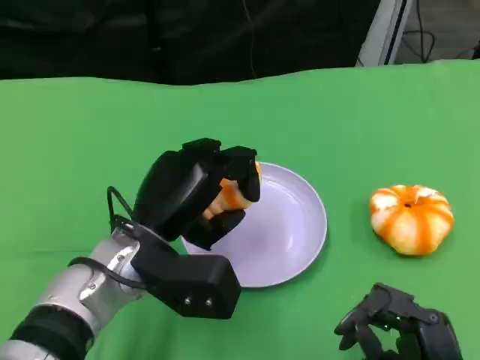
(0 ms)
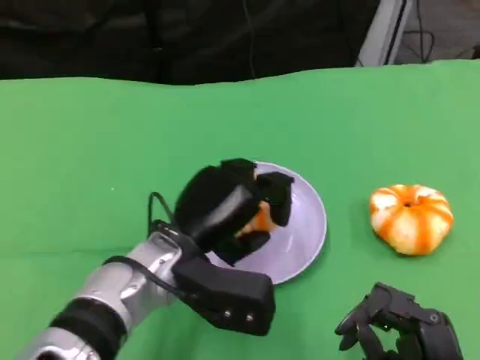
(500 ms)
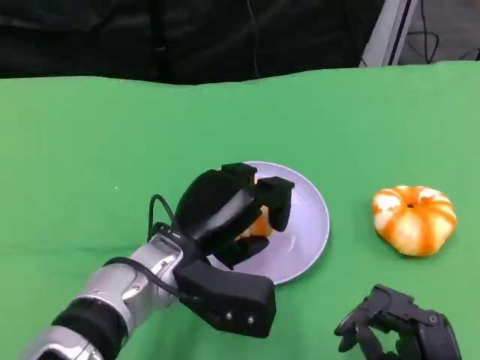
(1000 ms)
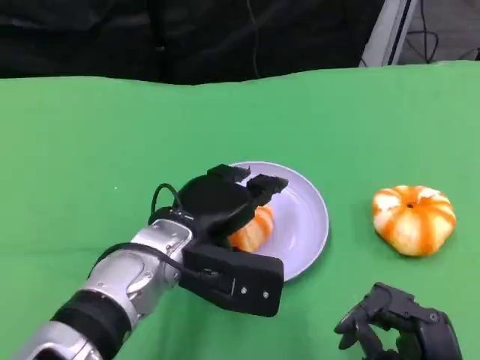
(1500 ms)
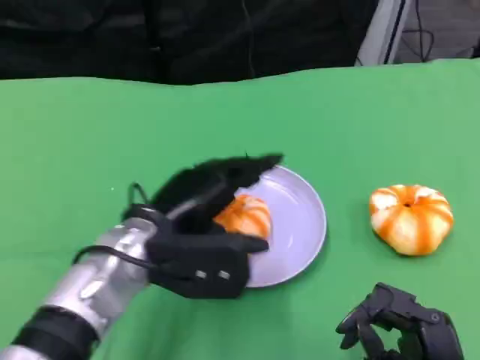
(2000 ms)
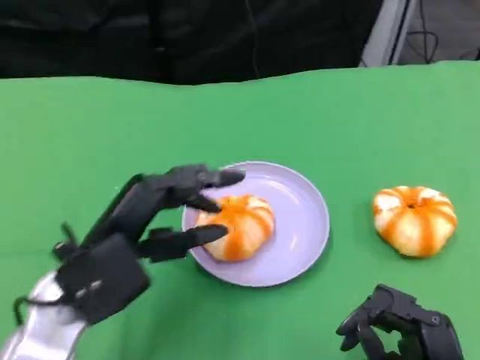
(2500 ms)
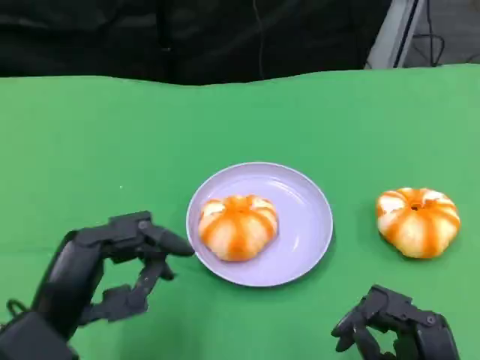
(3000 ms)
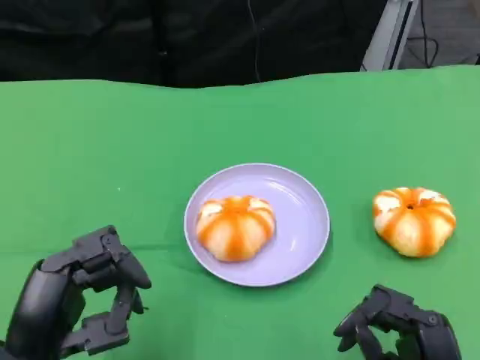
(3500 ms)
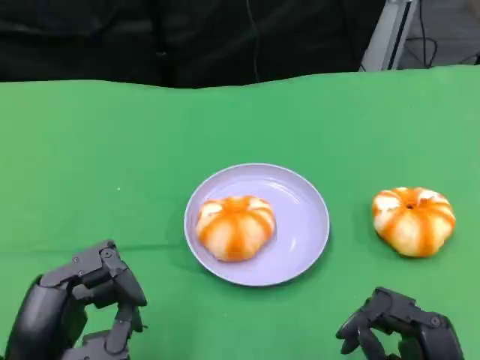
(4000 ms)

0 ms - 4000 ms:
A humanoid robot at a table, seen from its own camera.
Task of the whole recording: Grasp the bread from the table and place it into the plate.
2000 ms - 4000 ms: The left hand shifts about 15 cm backward and to the left.

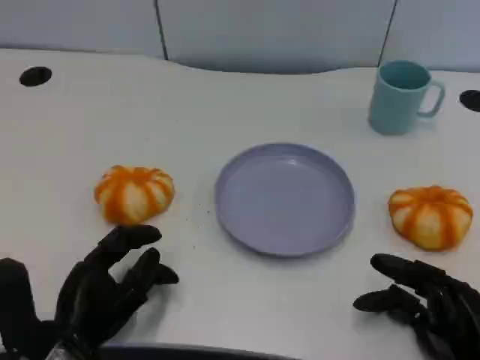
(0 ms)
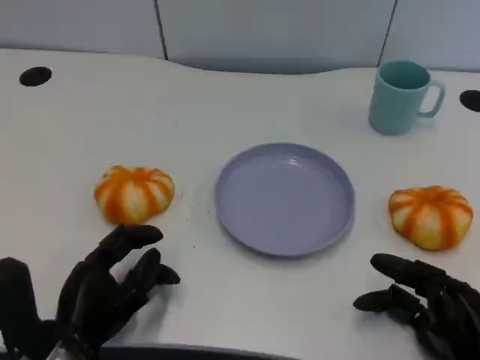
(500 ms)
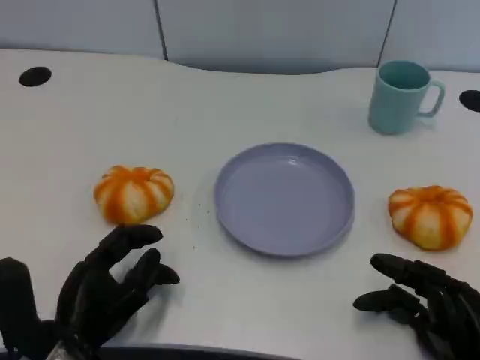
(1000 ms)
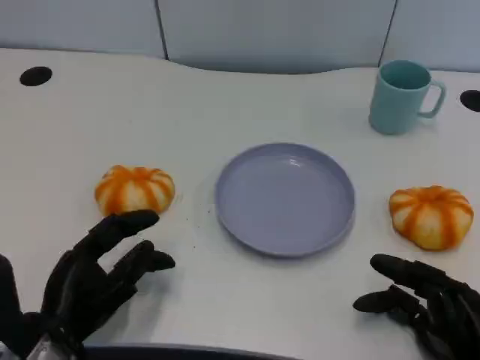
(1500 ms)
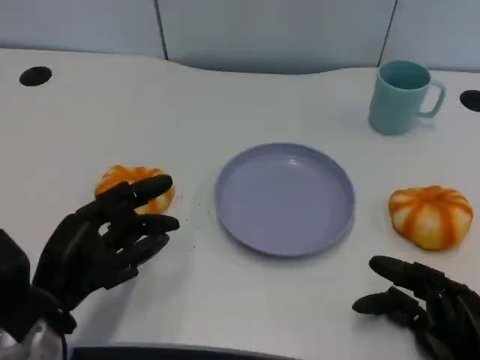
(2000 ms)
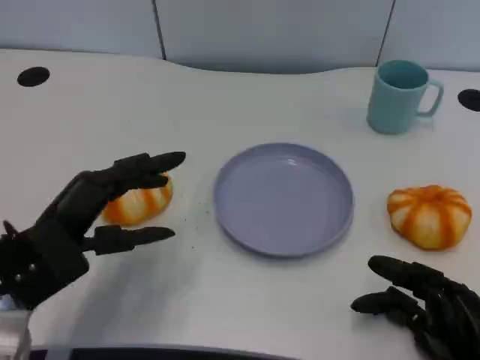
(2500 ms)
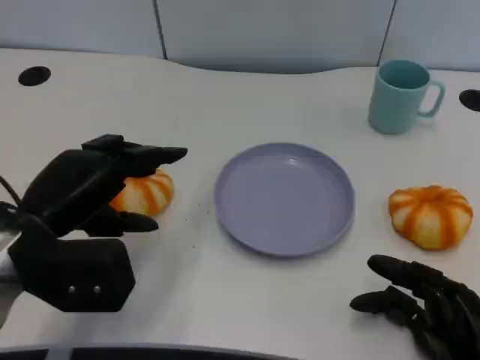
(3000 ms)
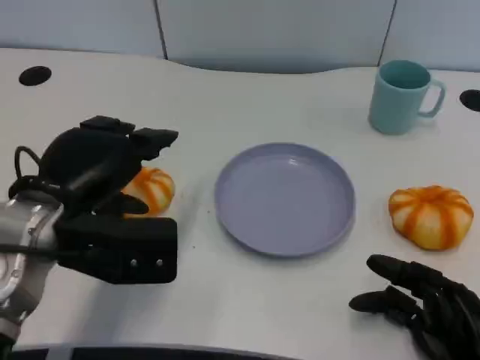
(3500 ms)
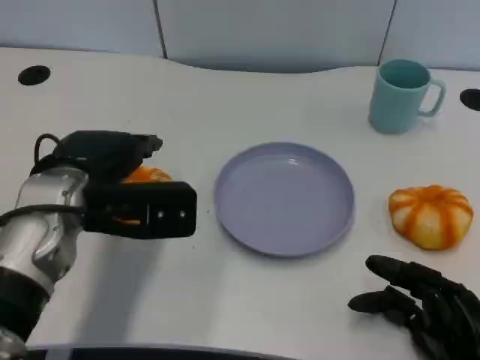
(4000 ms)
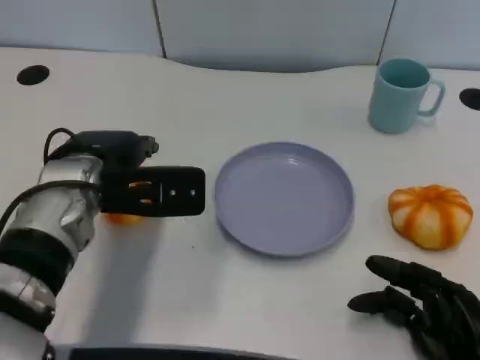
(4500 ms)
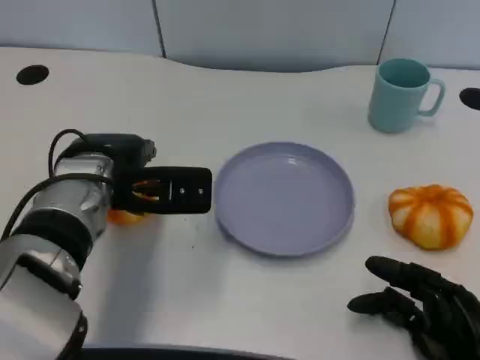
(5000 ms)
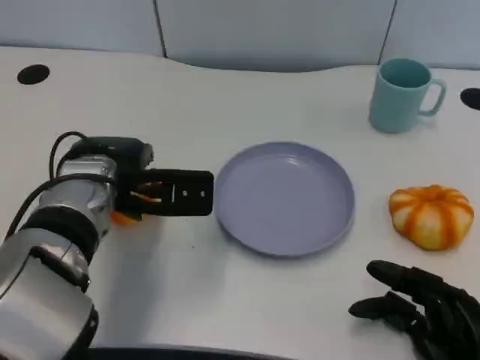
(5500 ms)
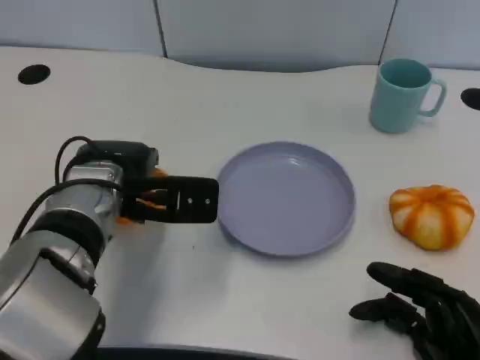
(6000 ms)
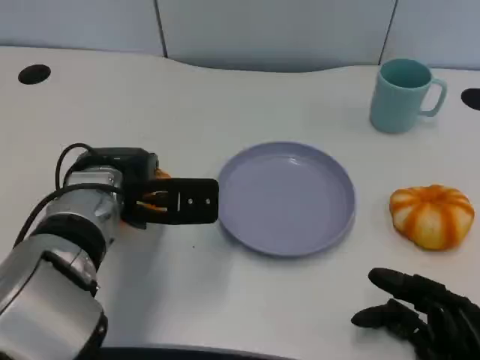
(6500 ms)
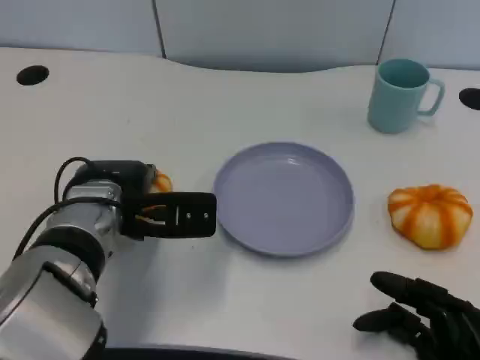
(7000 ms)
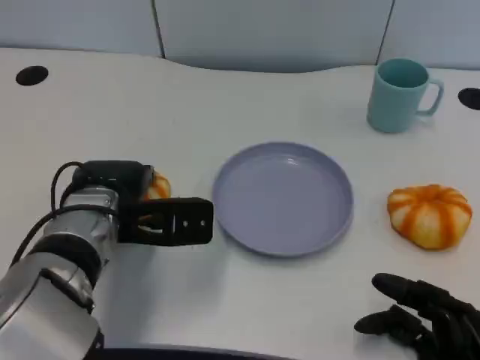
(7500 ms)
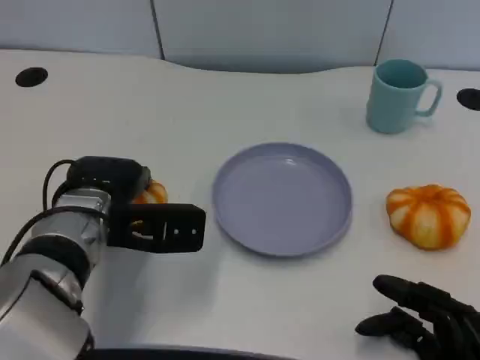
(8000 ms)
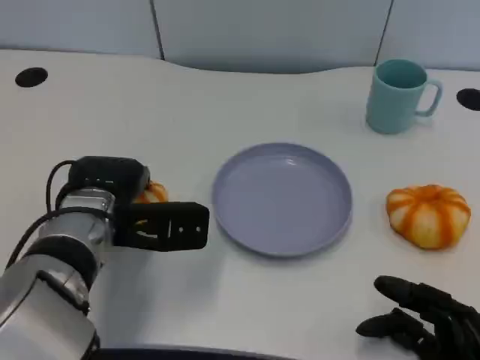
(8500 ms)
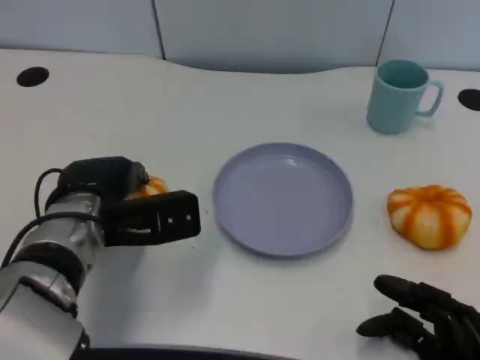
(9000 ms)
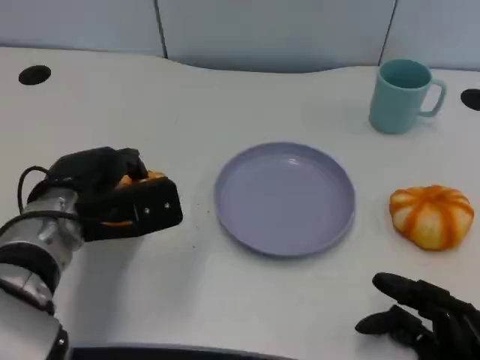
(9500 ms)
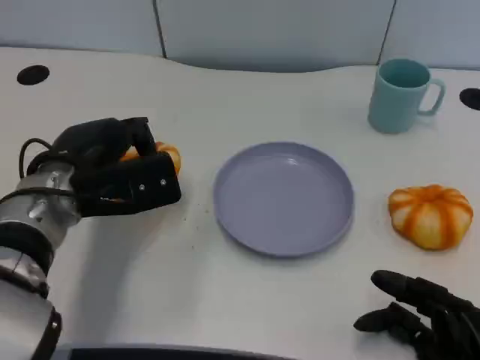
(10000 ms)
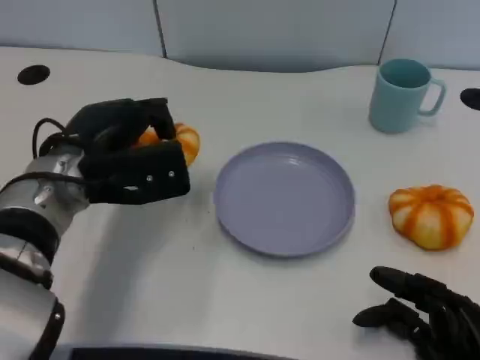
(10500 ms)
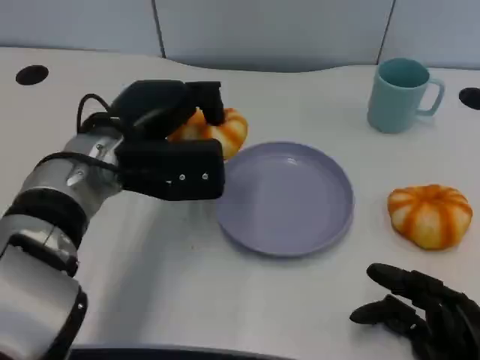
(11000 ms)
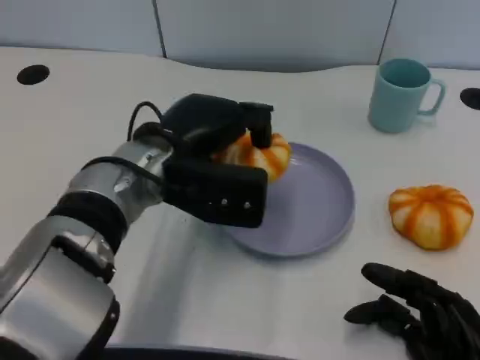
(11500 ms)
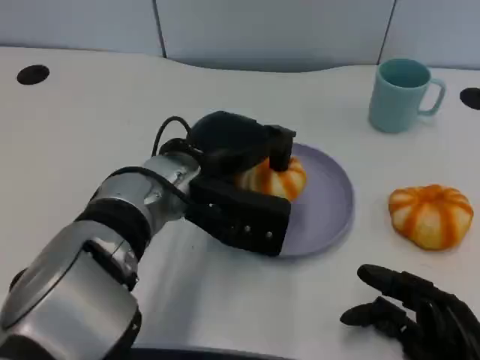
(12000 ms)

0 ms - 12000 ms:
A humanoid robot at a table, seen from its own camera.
Task of the whole recording: Grasp the bread from the table and place it into the plate.
0 ms - 2000 ms: The left hand shifts by some 5 cm.
2000 ms - 4000 ms: The left hand moves forward and upward, approximately 10 cm.
4000 ms - 6000 ms: The left hand moves roughly 5 cm.
6000 ms - 8000 ms: The hands stay close to where they were, moving slightly.
10000 ms - 12000 ms: The left hand is displaced to the right by some 10 cm.

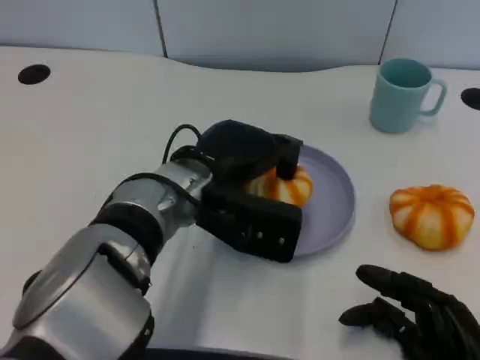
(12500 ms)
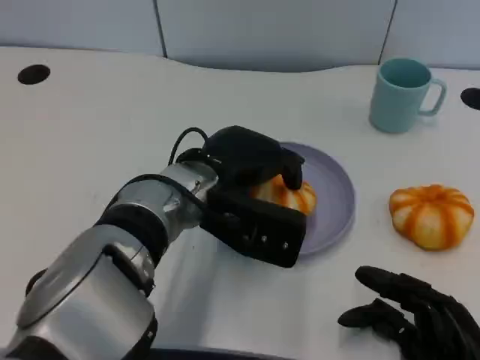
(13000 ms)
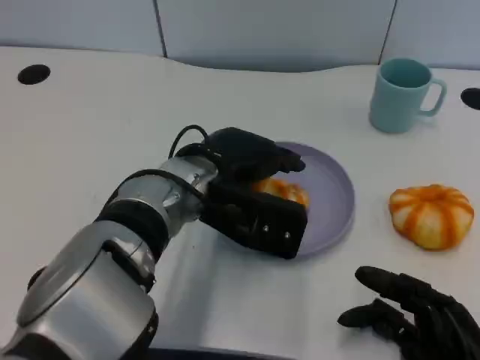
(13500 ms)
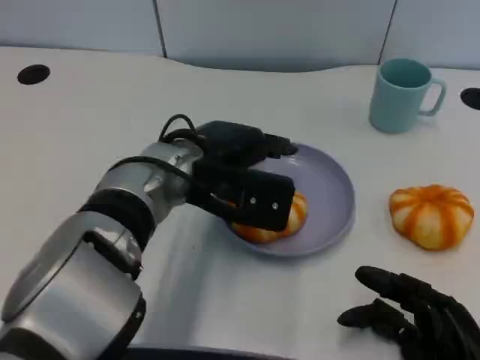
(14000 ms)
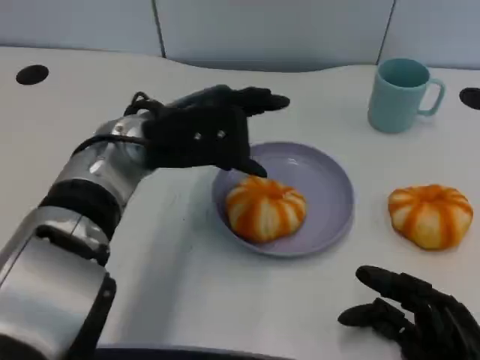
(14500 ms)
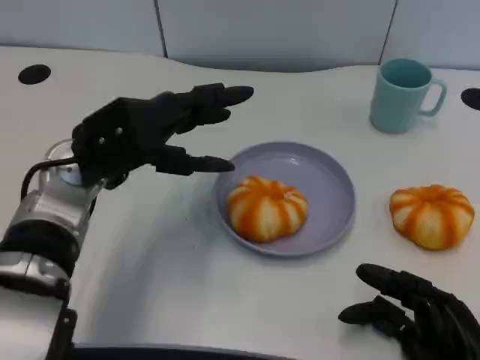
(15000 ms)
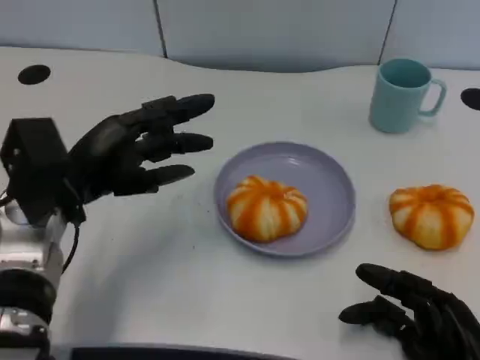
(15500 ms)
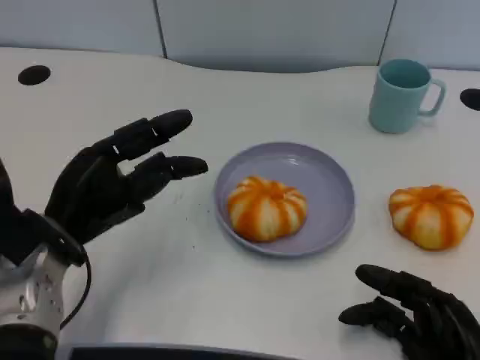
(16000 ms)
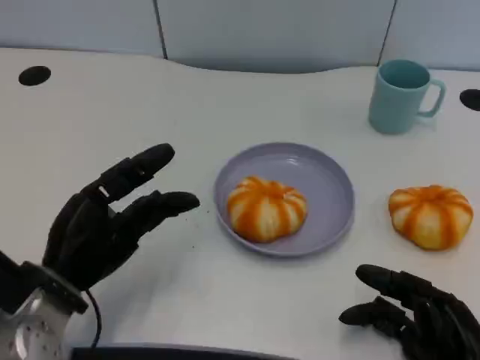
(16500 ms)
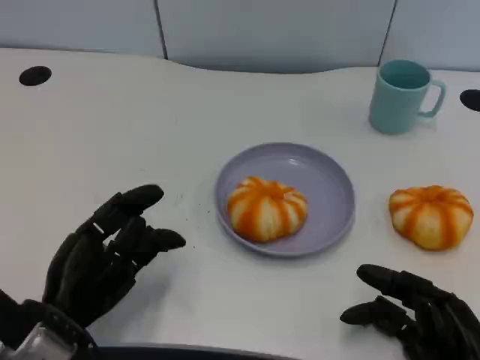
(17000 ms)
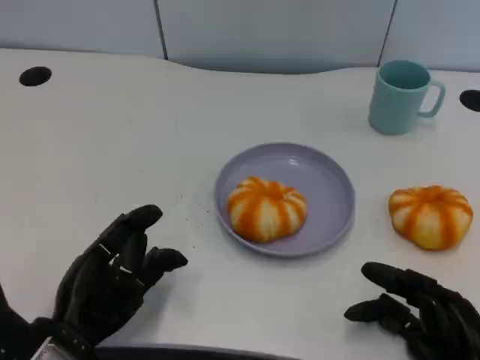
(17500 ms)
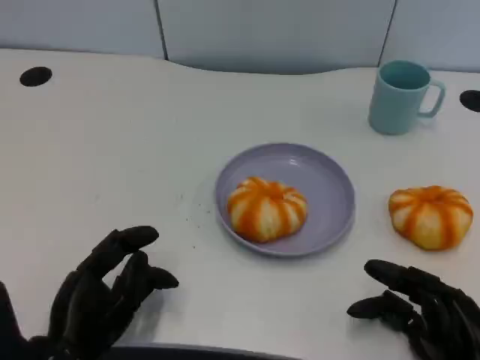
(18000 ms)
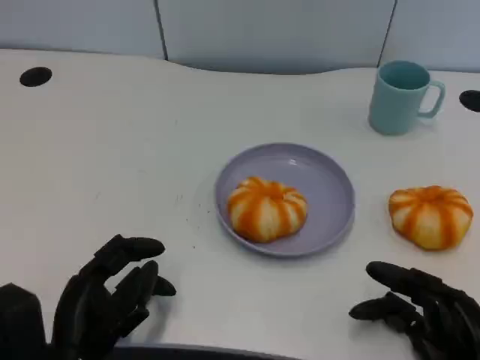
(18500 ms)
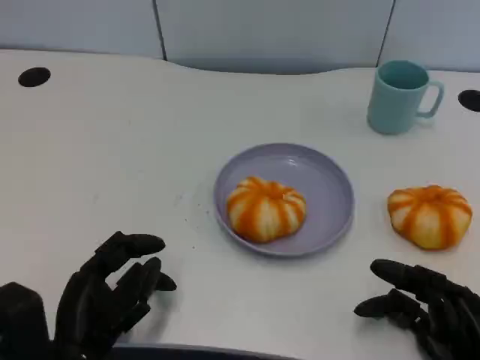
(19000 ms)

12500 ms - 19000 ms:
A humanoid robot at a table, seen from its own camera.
Task of the whole recording: Grasp the bread from the table and place it into the plate.
12500 ms - 14500 ms: The left hand shifts about 5 cm to the left.
14500 ms - 17000 ms: The left hand shifts roughly 20 cm downward, backward and to the left.

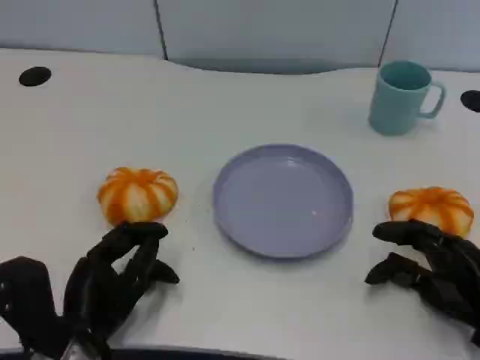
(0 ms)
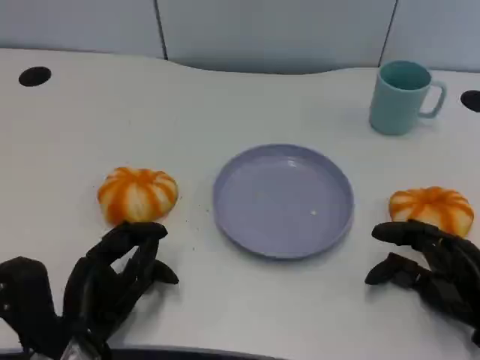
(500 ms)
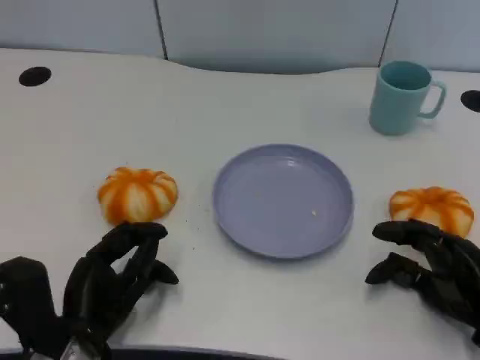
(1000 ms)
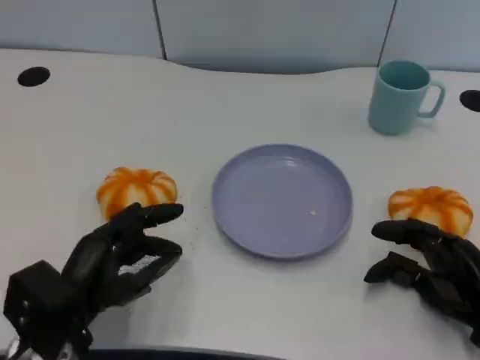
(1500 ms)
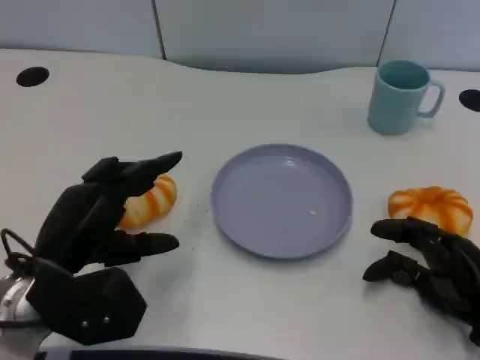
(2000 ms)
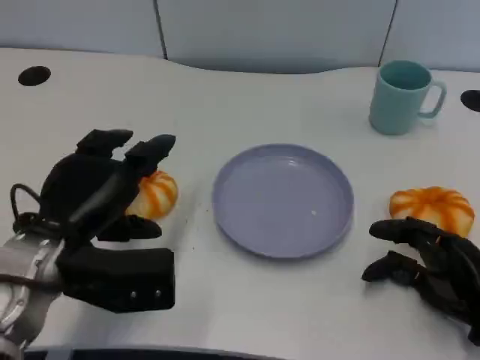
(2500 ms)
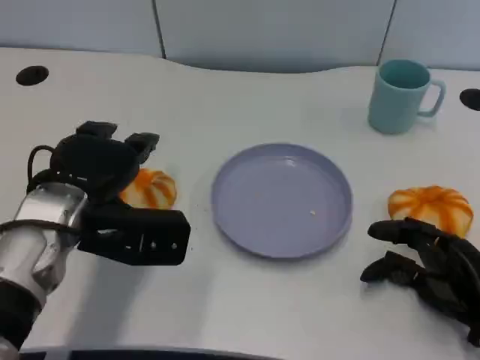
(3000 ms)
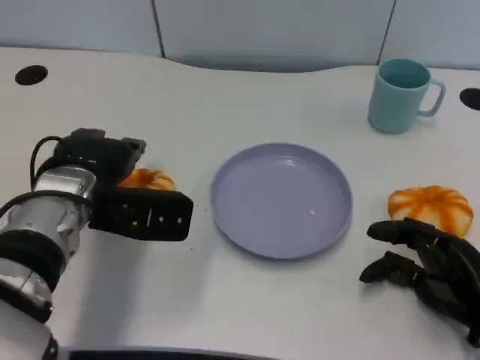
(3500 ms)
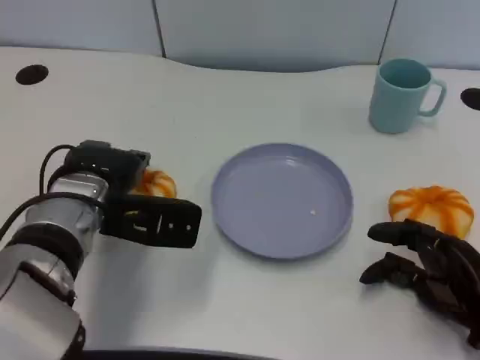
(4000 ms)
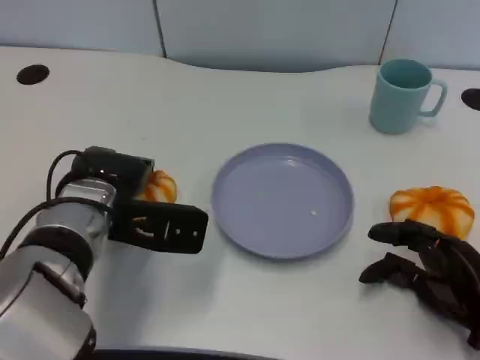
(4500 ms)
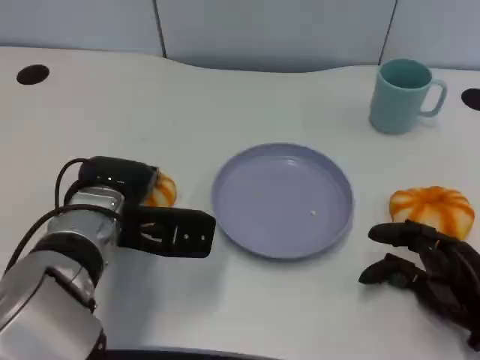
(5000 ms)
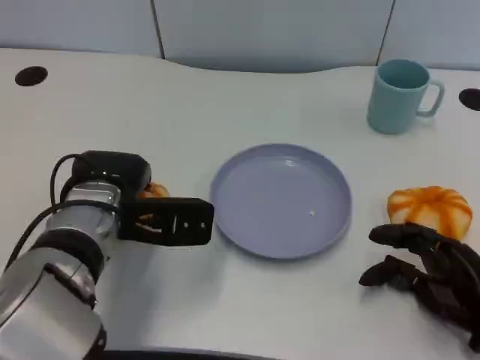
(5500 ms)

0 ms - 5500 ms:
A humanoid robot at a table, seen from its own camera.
Task of the whole recording: Grasp the bread from the table and place it into the plate.
0 ms - 2000 ms: The left hand is displaced upward by roughly 10 cm.
2000 ms - 3500 ms: The left hand shifts roughly 10 cm forward.
3500 ms - 5500 ms: The hands stay close to where they were, moving slightly.
